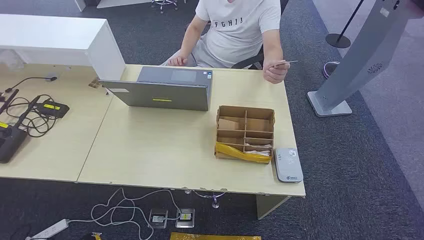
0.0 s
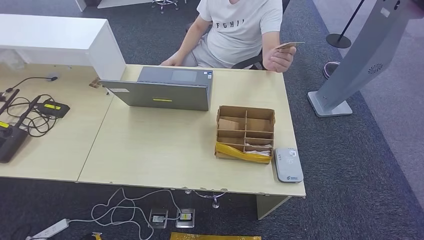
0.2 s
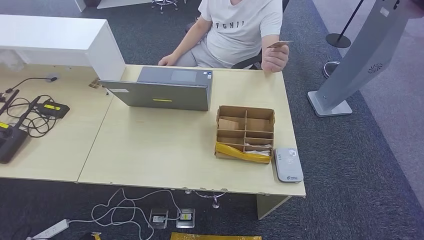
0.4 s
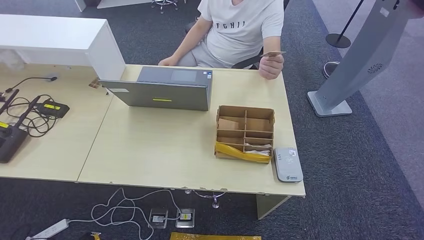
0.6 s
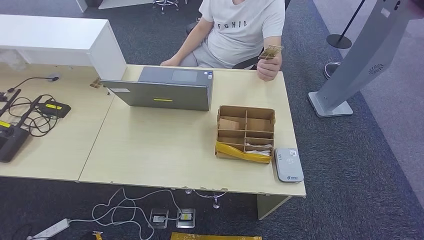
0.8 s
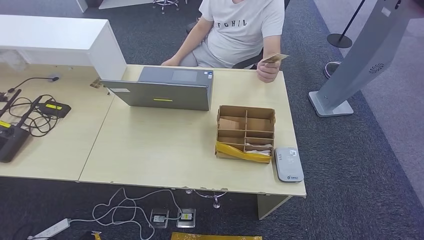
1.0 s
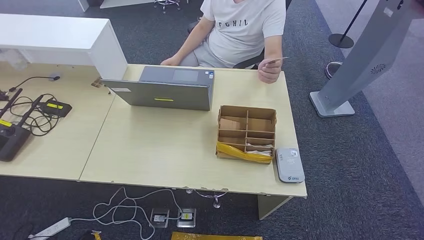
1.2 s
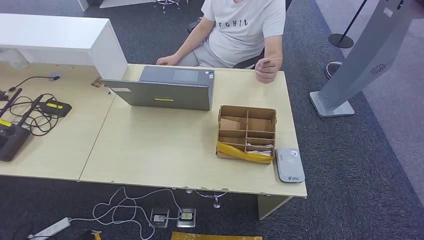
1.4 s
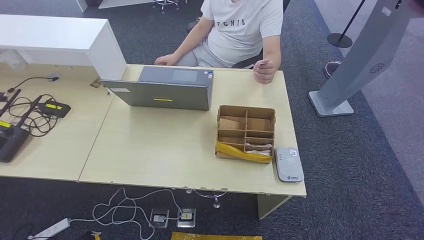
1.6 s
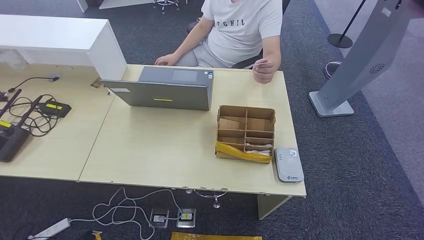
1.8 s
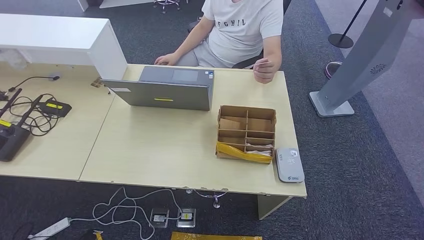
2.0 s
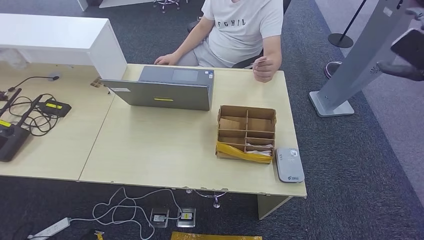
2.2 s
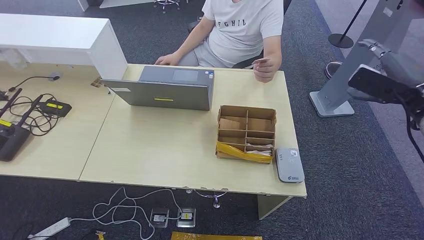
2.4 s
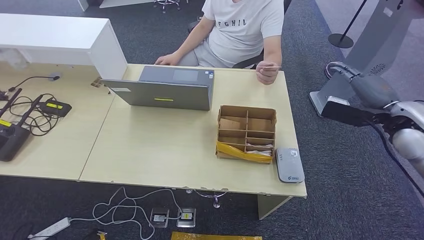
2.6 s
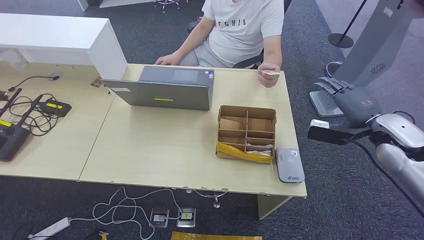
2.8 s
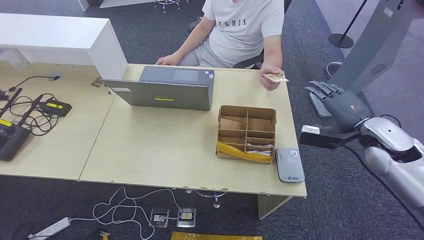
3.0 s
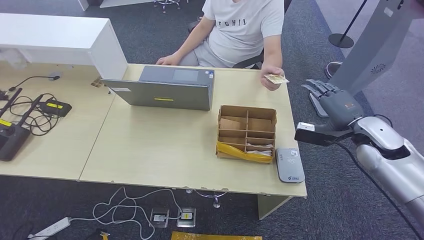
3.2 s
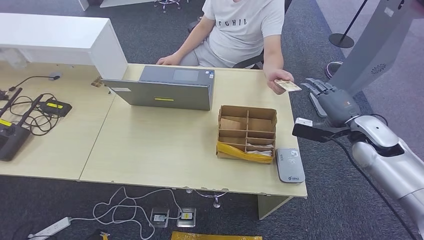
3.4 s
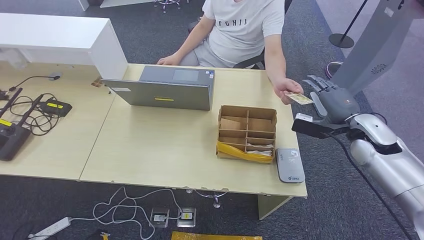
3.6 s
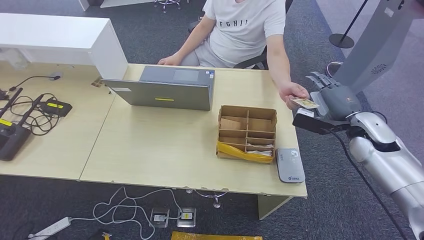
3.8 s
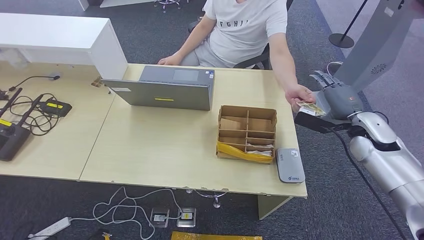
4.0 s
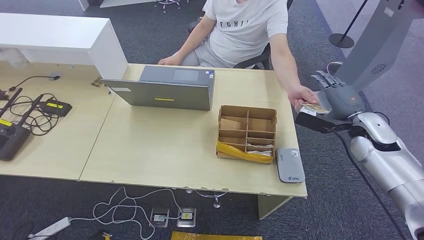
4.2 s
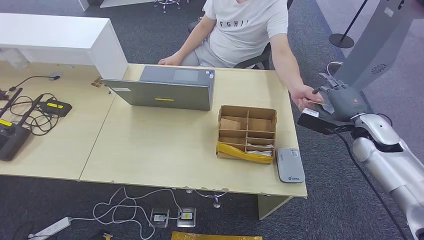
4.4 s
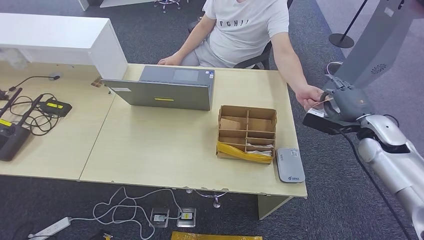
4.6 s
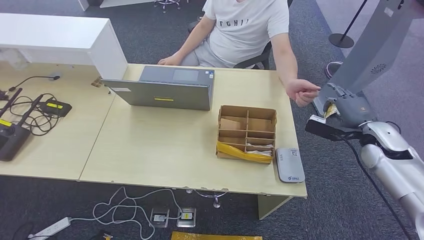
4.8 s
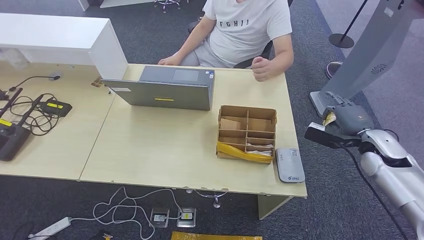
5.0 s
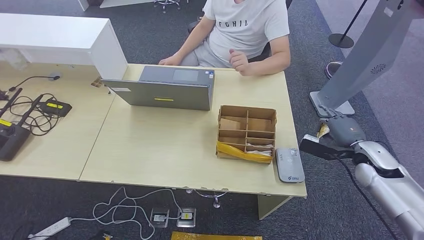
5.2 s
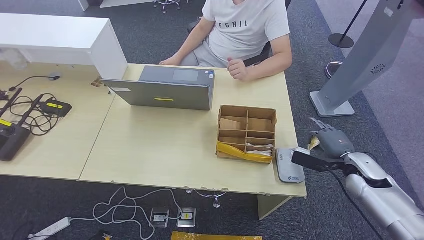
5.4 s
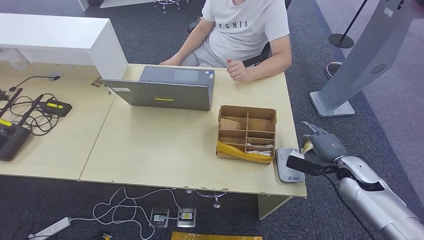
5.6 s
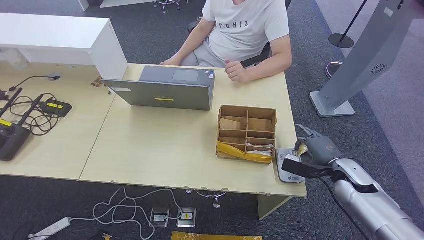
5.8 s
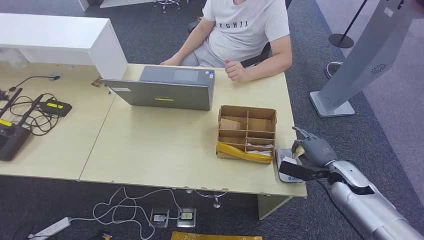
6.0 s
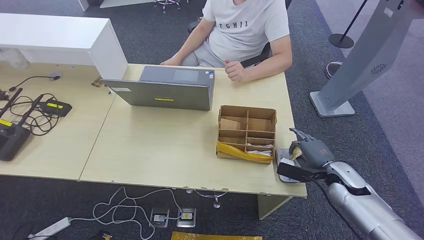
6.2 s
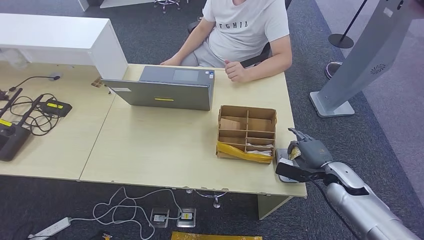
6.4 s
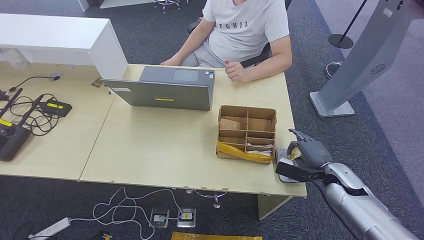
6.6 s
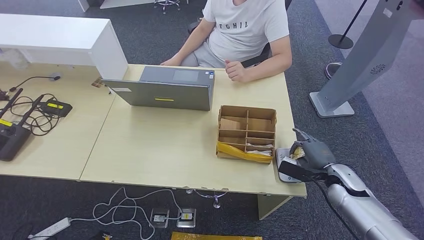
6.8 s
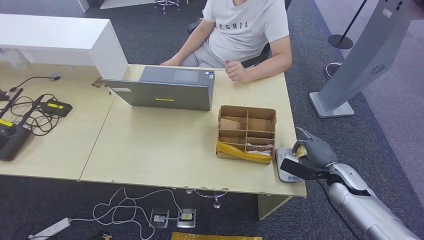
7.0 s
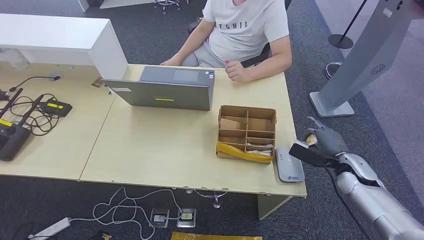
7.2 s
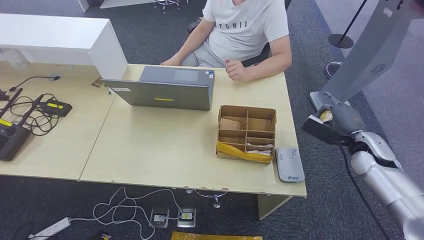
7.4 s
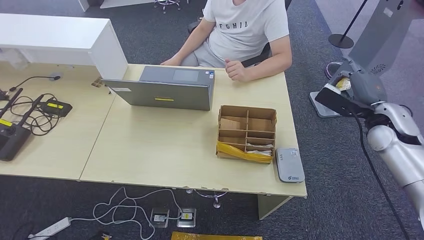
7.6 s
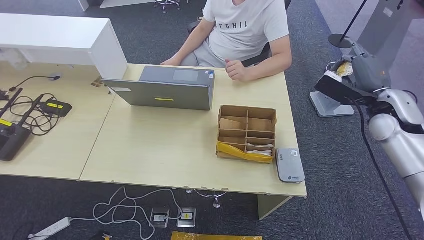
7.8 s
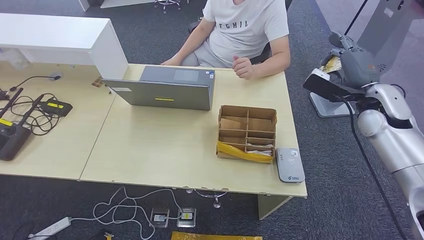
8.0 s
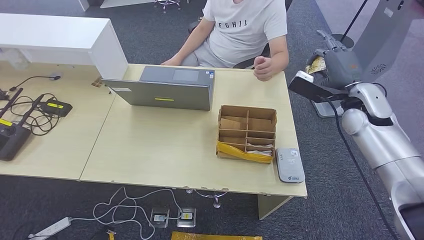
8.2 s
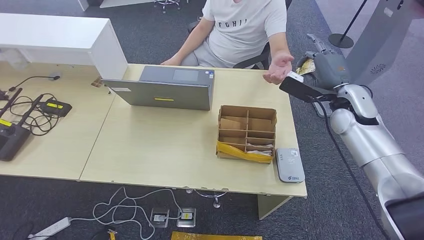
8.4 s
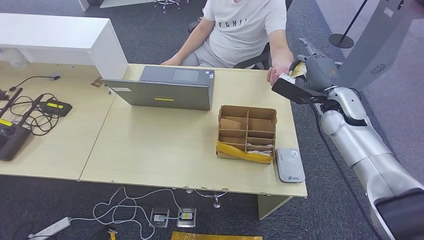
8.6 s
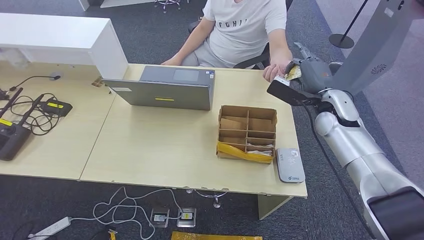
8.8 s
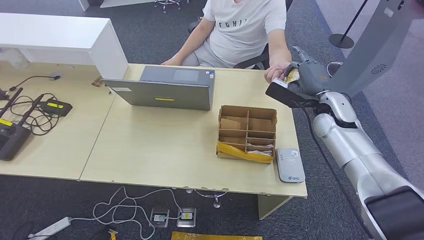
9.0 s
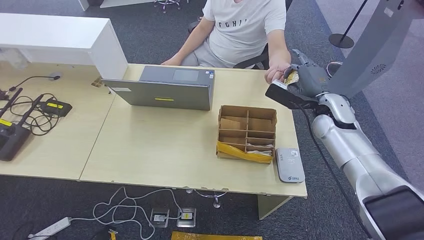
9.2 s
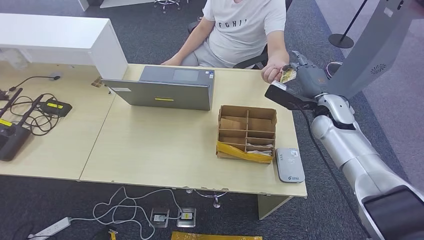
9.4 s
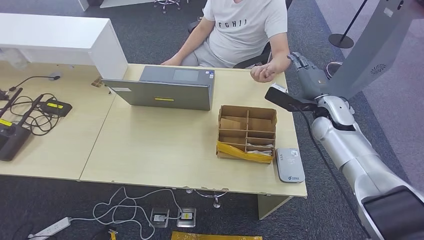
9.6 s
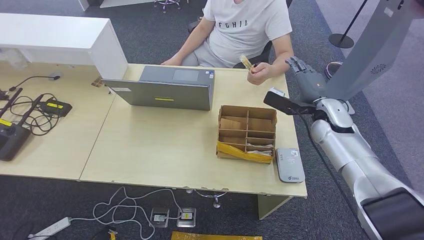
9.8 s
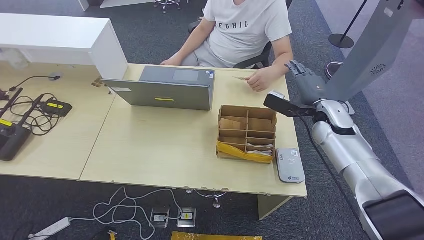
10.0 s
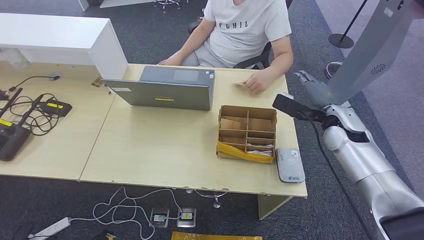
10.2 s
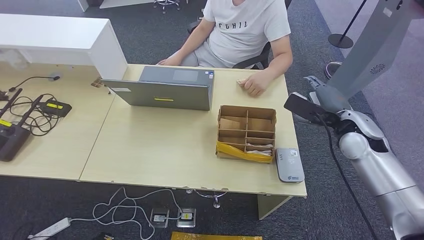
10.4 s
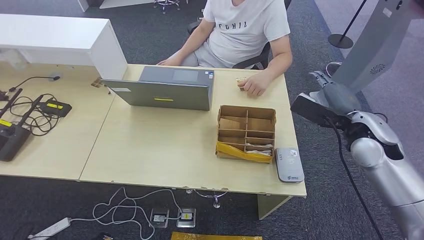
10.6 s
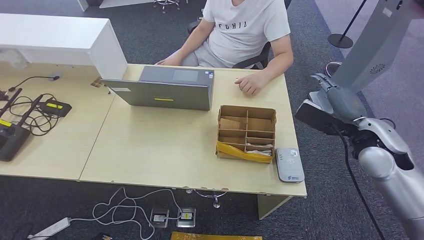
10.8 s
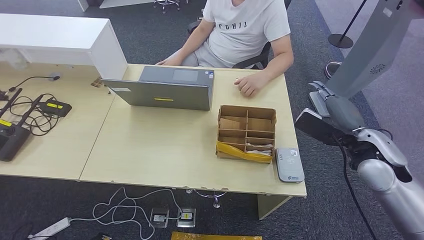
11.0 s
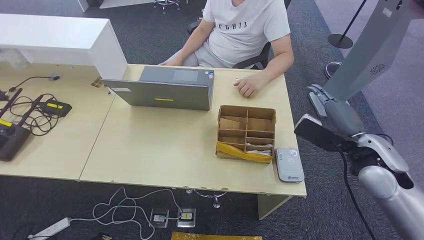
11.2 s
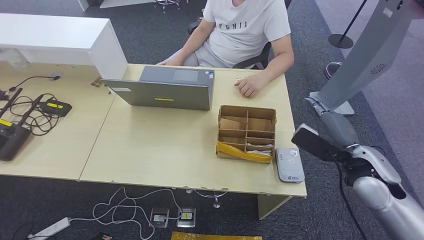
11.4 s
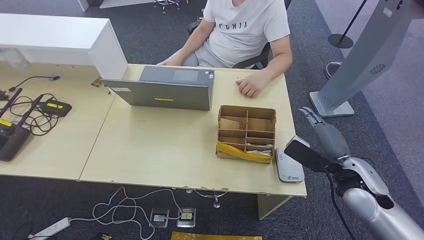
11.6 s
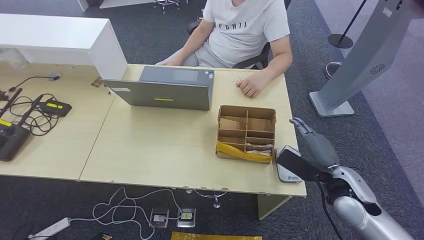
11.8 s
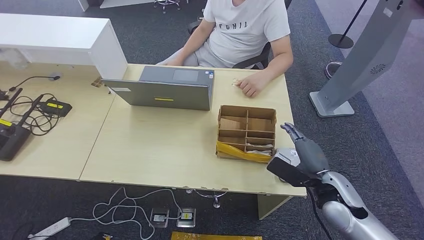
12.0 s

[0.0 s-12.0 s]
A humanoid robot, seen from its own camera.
Step, 0.0 to 4.2 s: Take the ID card from the person's hand.
Step, 4.4 to 8.0 s: Place the ID card on the card reader.
Step, 8.2 to 10.6 s: Hand the ID card to the person.
1.6 to 3.0 s: The right hand travels to the left and downward by roughly 35 cm.
3.0 to 4.4 s: The hands make only small movements.
4.4 to 6.0 s: The right hand heads downward and backward, covering some 15 cm.
6.0 to 7.6 s: The right hand heads upward and forward, covering some 15 cm.
7.6 to 9.0 s: The right hand is displaced to the left by about 10 cm.
9.0 to 10.4 s: The right hand goes about 5 cm backward.
10.4 to 12.0 s: The right hand travels backward and downward by some 15 cm.

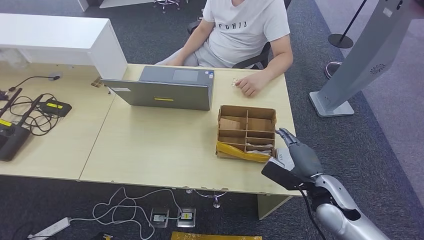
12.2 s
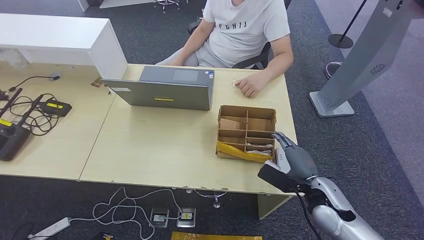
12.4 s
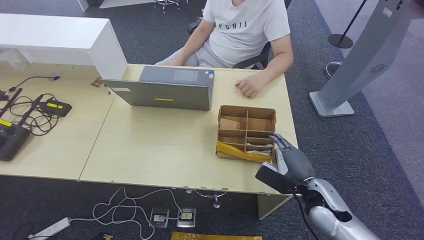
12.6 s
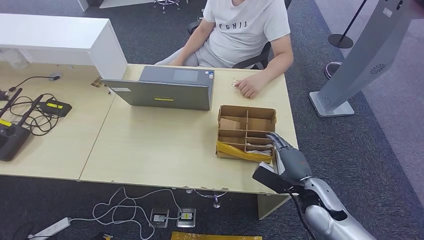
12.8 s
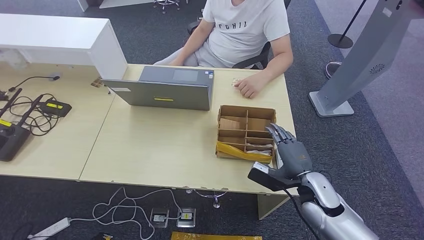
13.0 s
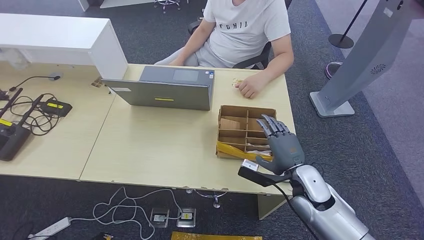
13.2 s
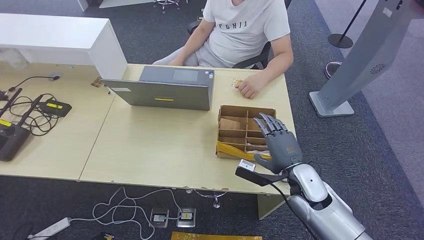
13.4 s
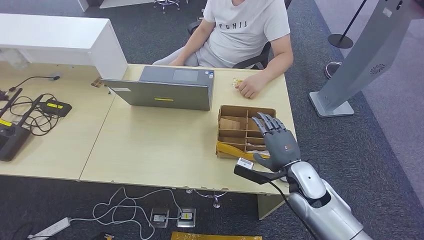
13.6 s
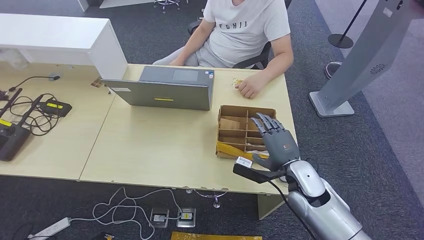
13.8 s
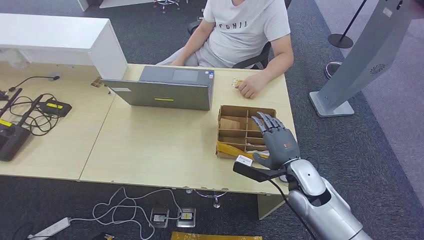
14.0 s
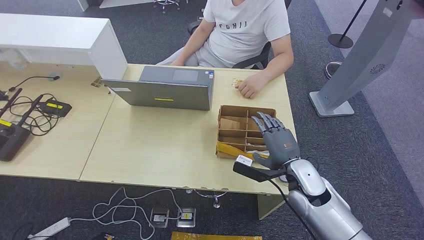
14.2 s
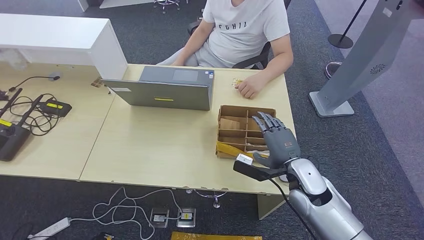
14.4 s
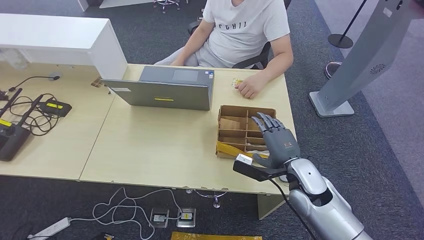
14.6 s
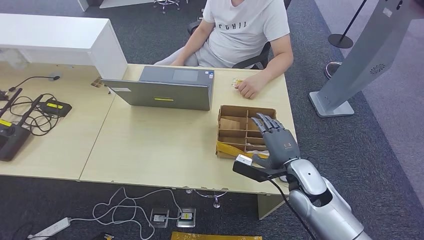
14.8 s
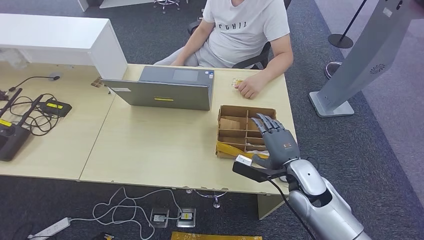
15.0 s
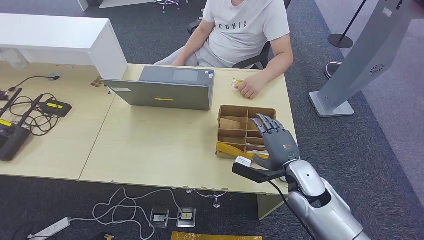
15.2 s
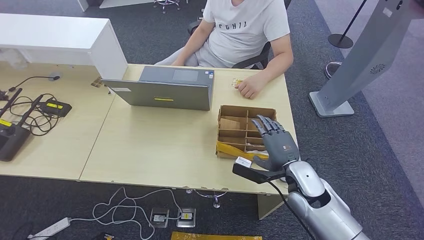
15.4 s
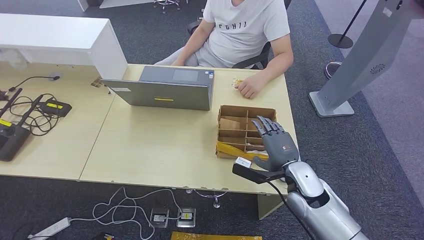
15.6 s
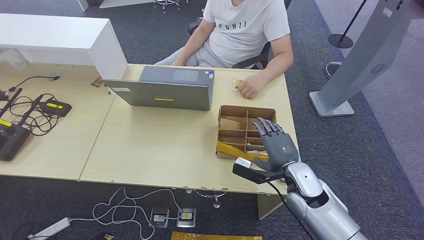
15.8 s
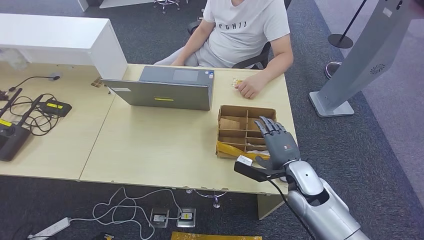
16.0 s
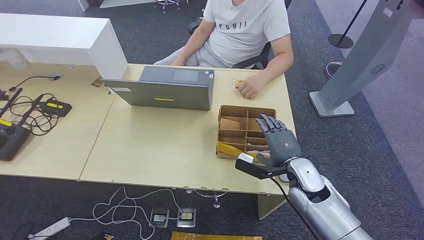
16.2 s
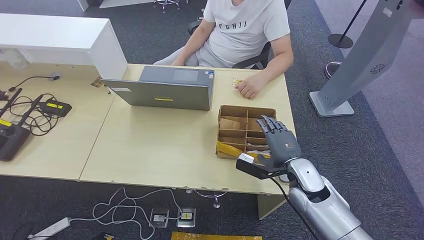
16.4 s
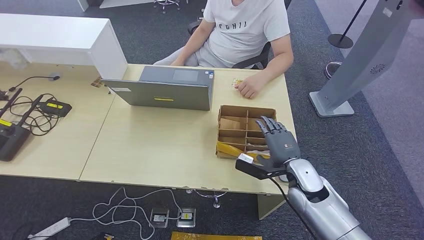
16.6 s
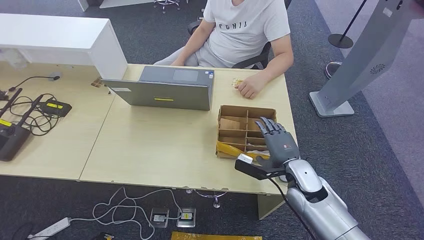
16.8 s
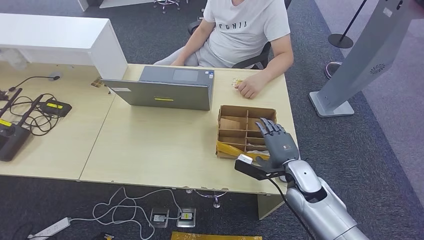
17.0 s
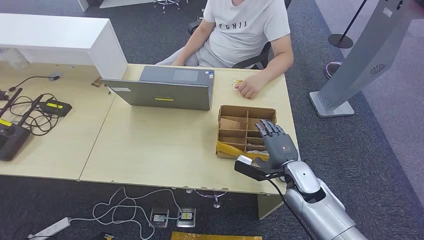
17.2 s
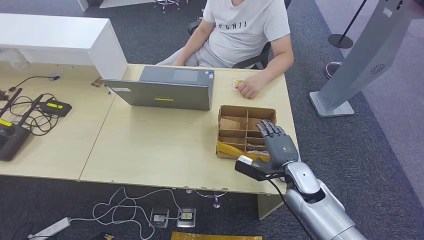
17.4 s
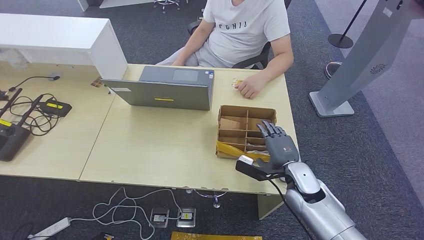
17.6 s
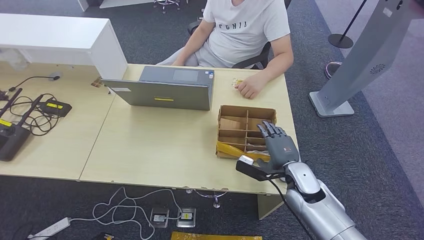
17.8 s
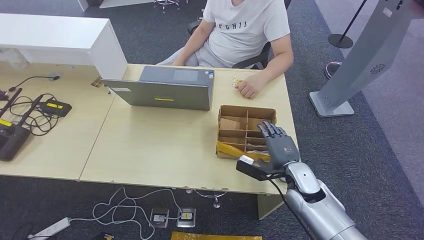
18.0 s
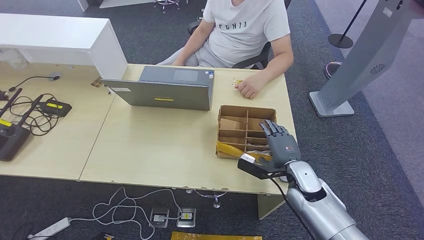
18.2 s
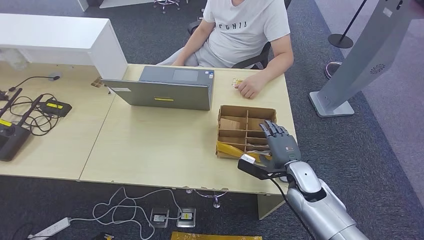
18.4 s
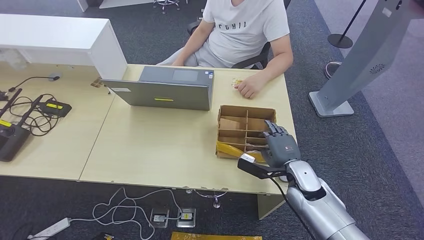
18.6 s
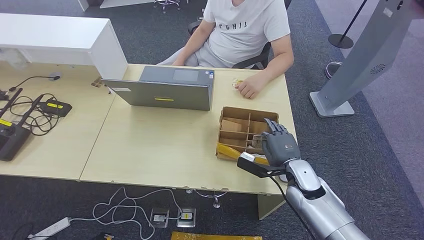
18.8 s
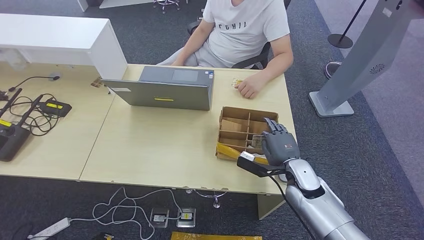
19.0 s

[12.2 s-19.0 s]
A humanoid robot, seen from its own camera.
12.2 to 13.6 s: The right hand travels to the left by roughly 5 cm.
13.6 to 17.6 s: The hands move only a little.
17.6 to 19.0 s: The two hands keep their place.
